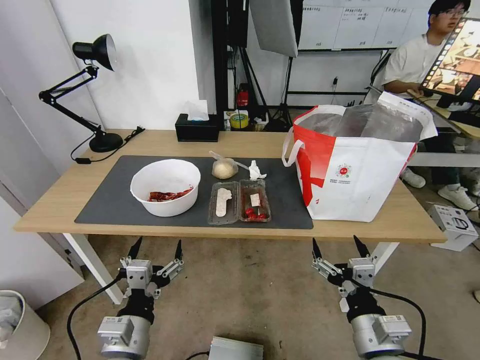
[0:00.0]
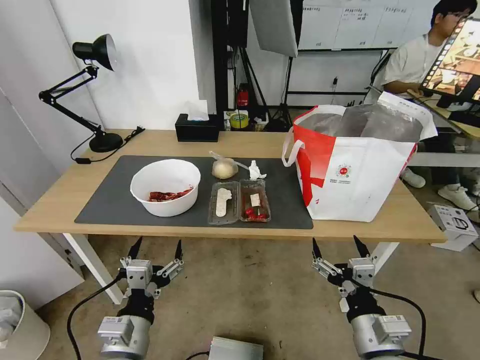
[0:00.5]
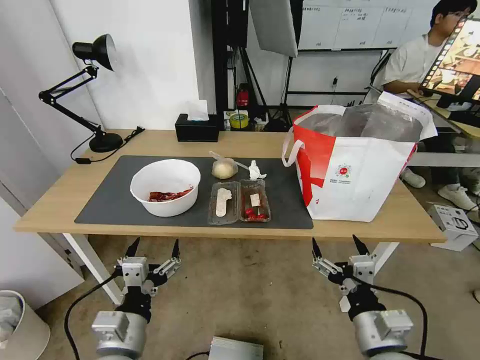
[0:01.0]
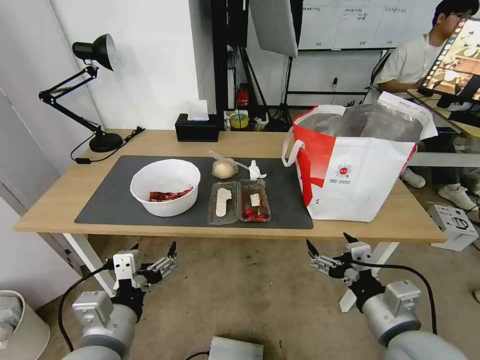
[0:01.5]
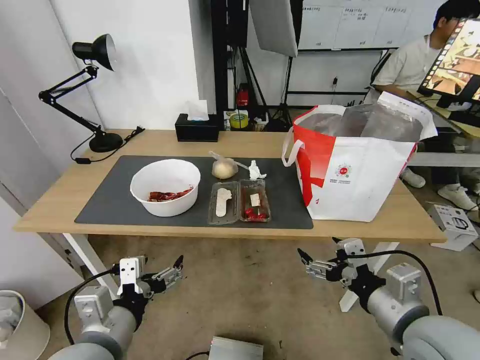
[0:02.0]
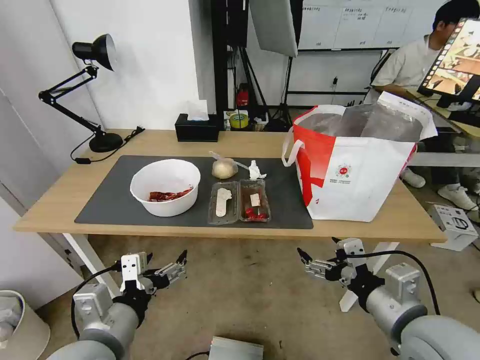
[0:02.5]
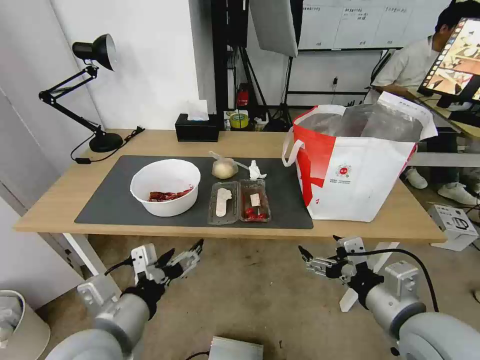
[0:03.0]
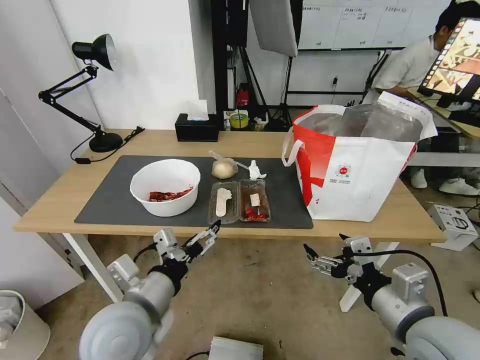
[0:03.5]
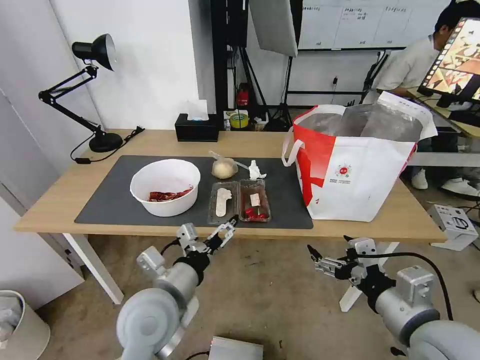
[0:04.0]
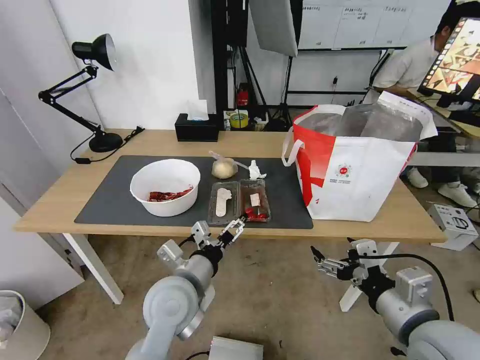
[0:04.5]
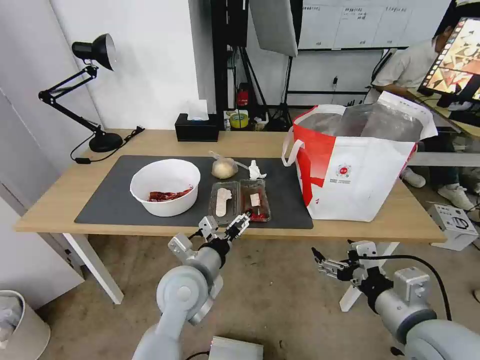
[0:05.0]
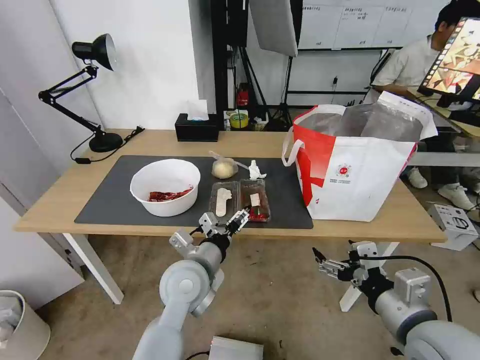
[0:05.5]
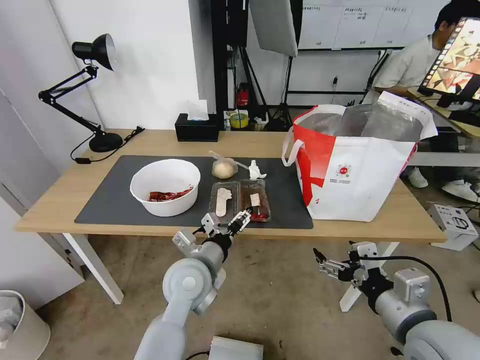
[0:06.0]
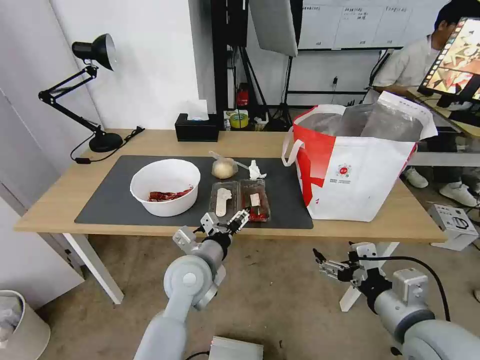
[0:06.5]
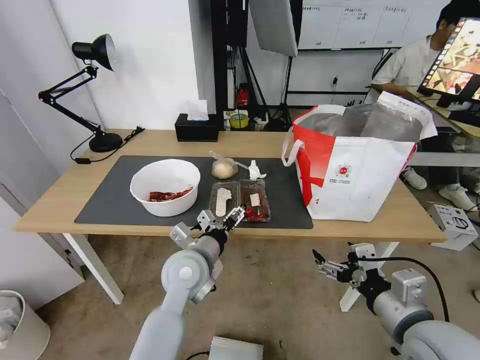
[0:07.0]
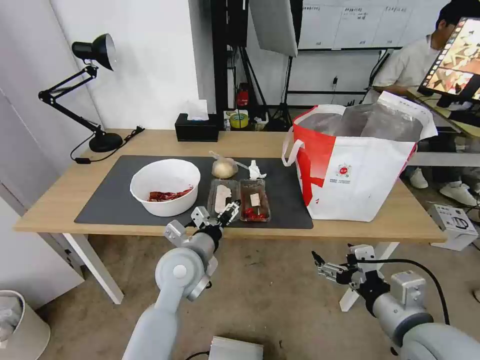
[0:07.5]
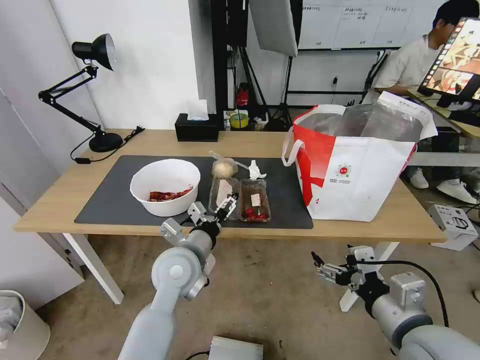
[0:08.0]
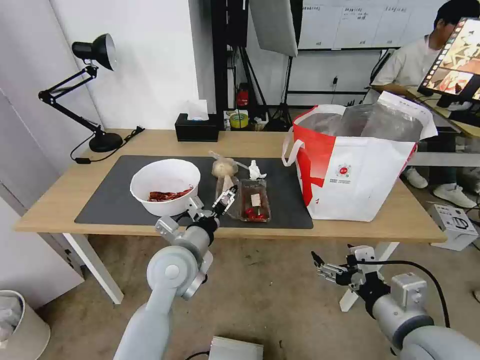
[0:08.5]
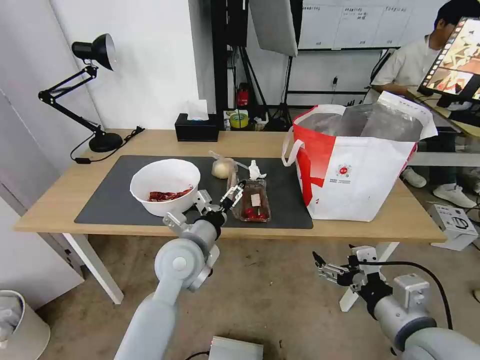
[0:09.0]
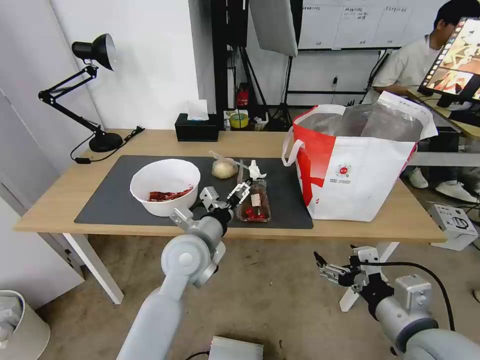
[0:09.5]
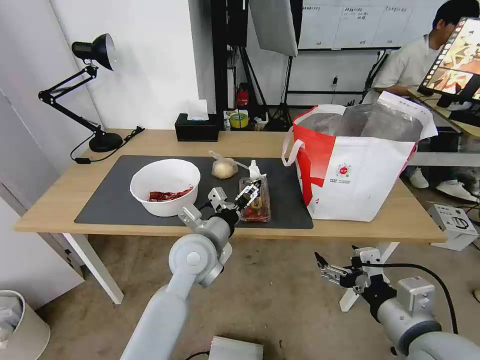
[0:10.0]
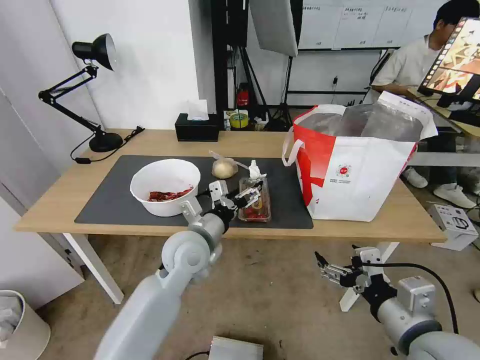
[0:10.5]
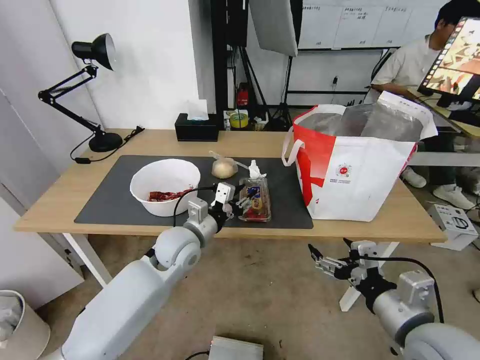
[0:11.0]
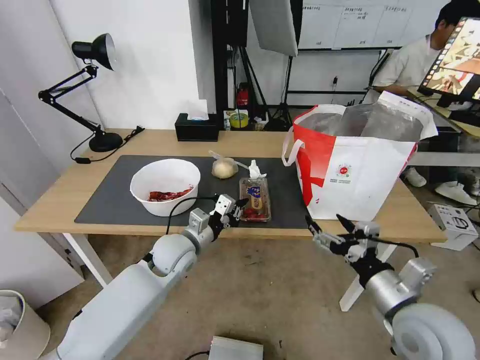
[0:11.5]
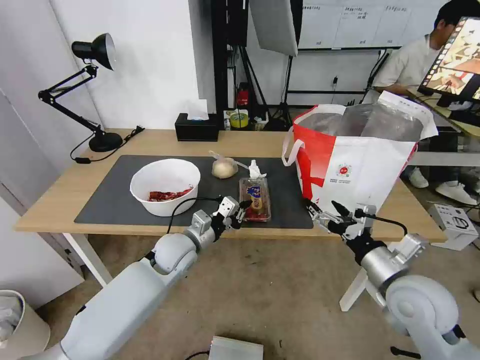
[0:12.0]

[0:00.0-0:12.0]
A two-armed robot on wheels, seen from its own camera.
Task of the whole recording: Pick up the trash from the table and place it into the takeout bag.
0:02.0 to 0:04.0: The left gripper moves forward and to the right, approximately 10 cm.
0:04.0 to 0:06.0: The left gripper shifts roughly 5 cm forward.
0:06.0 to 0:10.0: The grippers stay close to where they were, moving slightly.
0:10.0 to 0:12.0: The right gripper goes approximately 10 cm forward. The left gripper shifts roughly 10 cm downward, to the left and forward, and closes up.

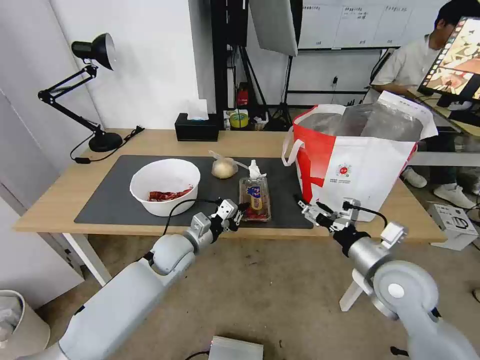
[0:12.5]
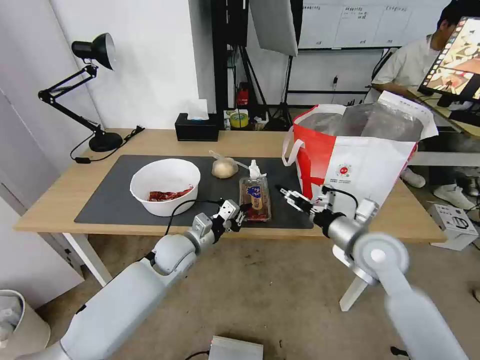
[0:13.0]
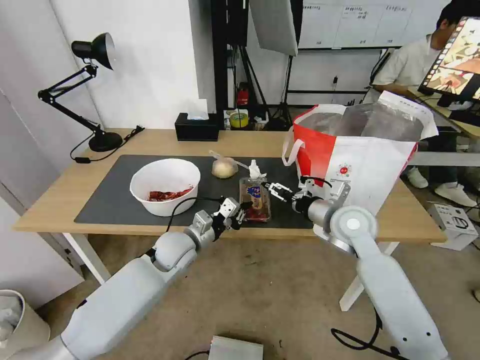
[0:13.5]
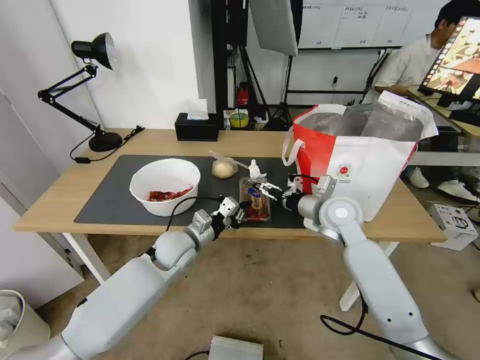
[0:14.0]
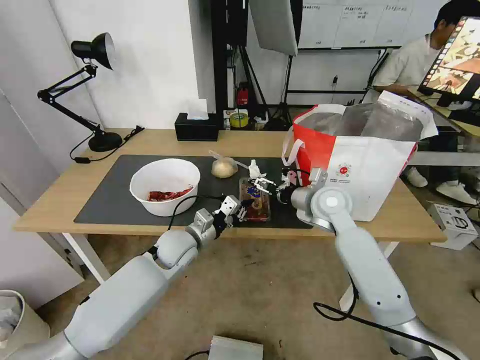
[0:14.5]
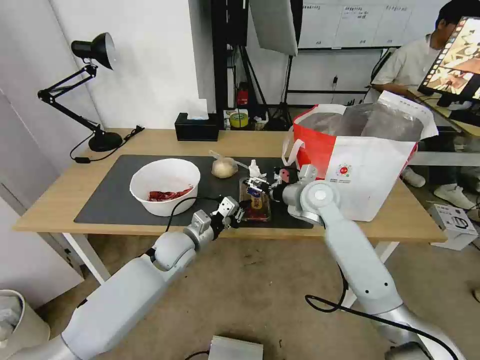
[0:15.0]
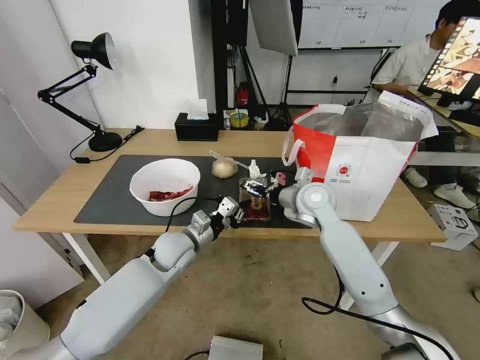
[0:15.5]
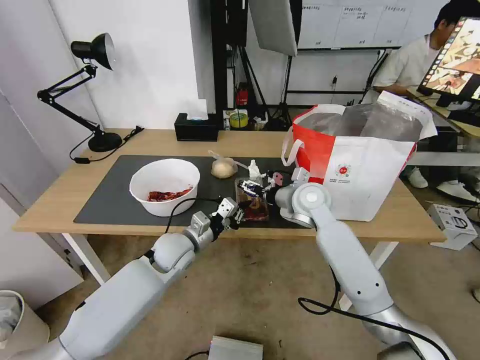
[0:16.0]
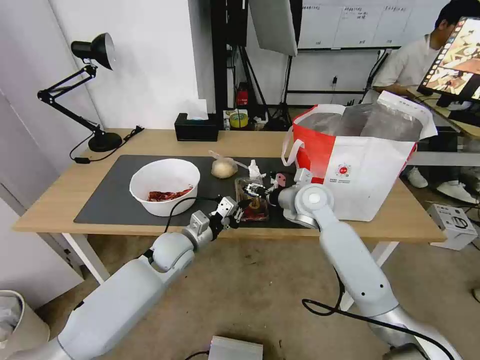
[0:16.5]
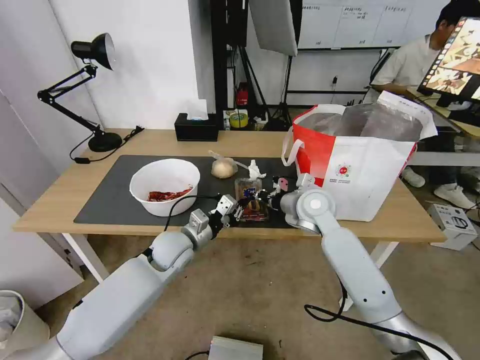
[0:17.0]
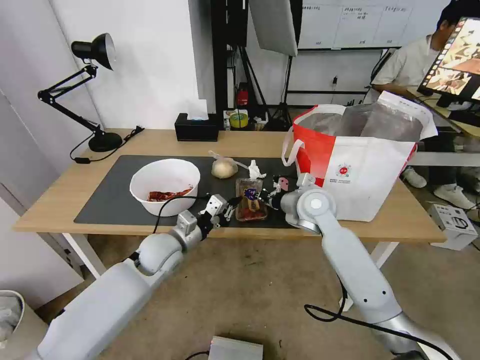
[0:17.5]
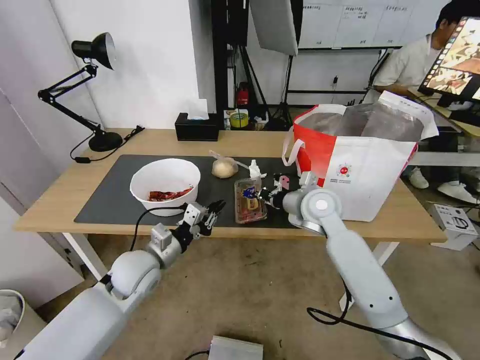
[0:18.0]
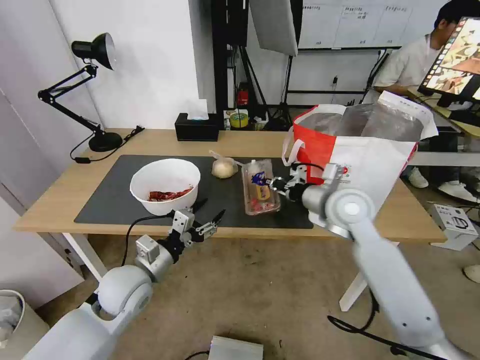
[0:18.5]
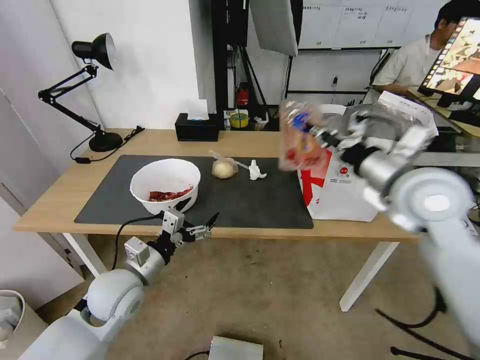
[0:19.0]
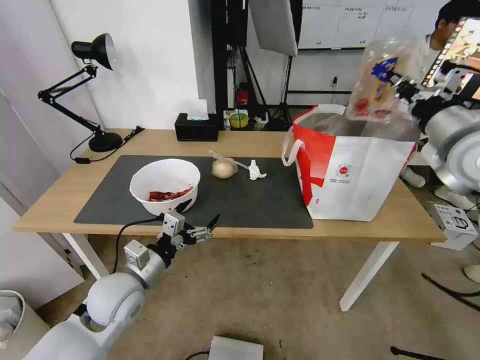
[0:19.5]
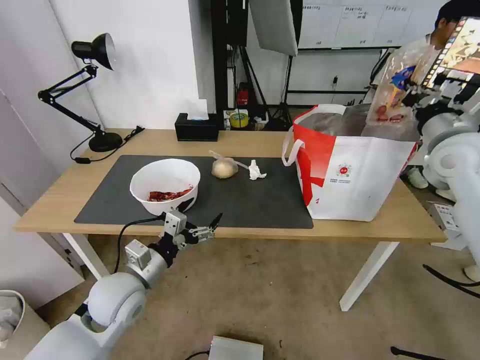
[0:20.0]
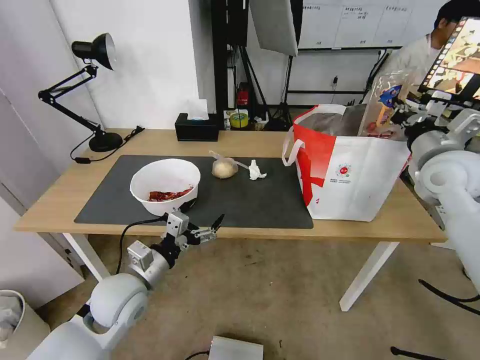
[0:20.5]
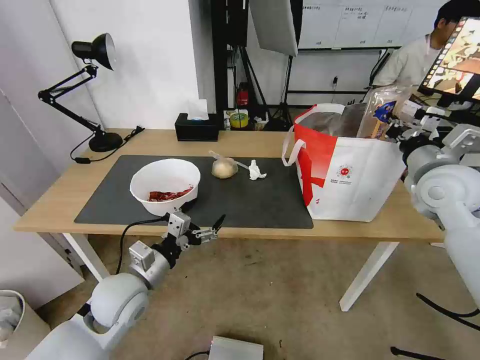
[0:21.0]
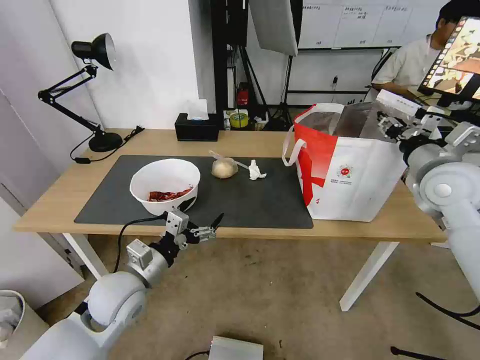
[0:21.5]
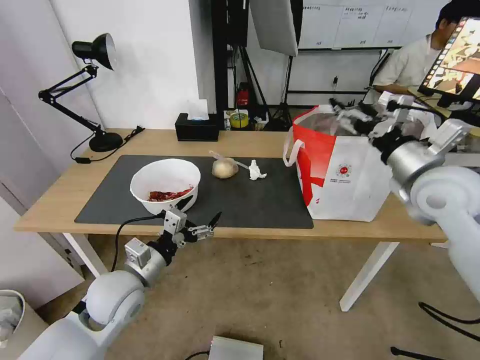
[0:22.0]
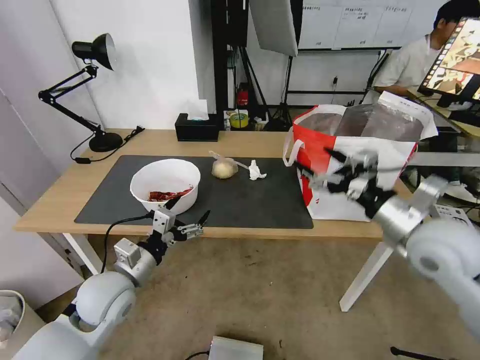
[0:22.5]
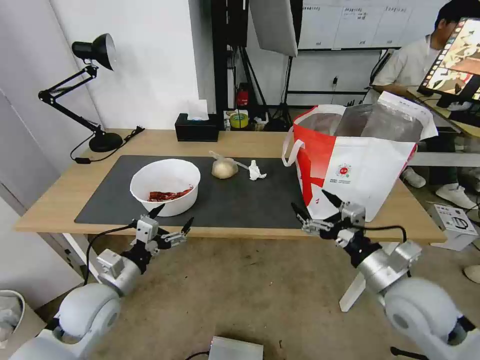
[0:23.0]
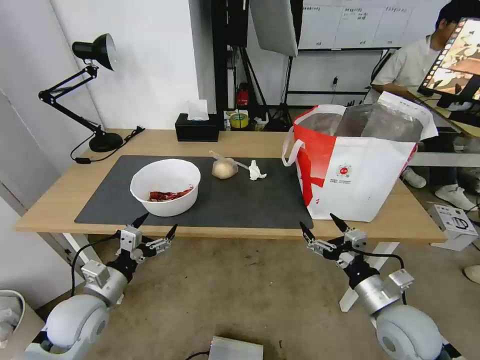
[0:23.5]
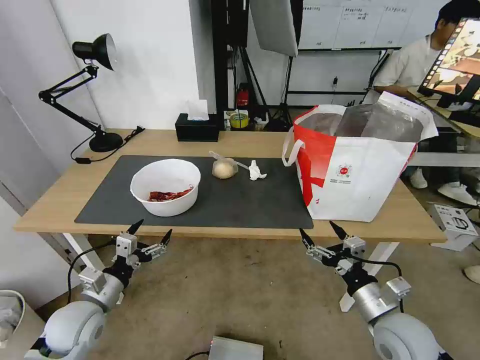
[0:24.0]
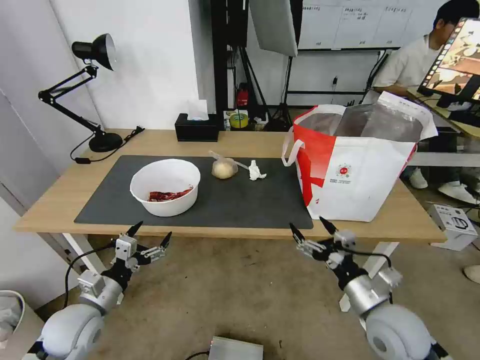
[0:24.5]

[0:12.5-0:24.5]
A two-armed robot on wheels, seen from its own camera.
Task of the whole recording: Pick up the trash from the table and place it into the takeout bag.
0:12.5 to 0:14.5: The right gripper shifts roughly 20 cm forward and to the left.
0:14.5 to 0:16.5: The grippers stay close to where they were, moving slightly.
0:16.5 to 0:18.5: The left gripper is displaced backward and to the left by roughly 10 cm, and opens its fingers; the right gripper moves backward, about 5 cm, and closes its fingers.
0:18.5 to 0:20.5: The right gripper shifts approximately 20 cm to the right and upward.
0:20.5 to 0:22.5: The right gripper goes about 15 cm backward and to the left, and opens its fingers.
0:22.5 to 0:24.5: The left gripper travels to the left and downward by roughly 10 cm; the right gripper travels downward and backward by about 20 cm.

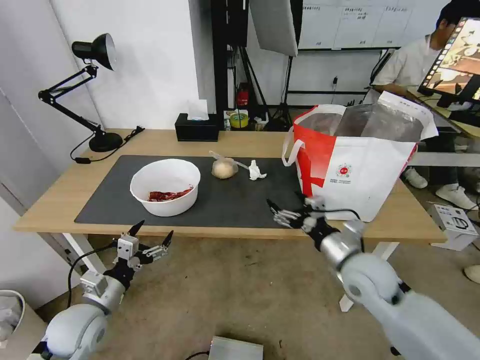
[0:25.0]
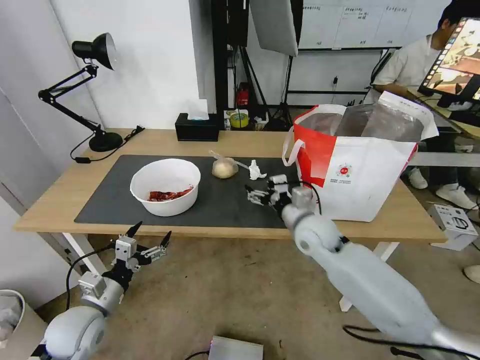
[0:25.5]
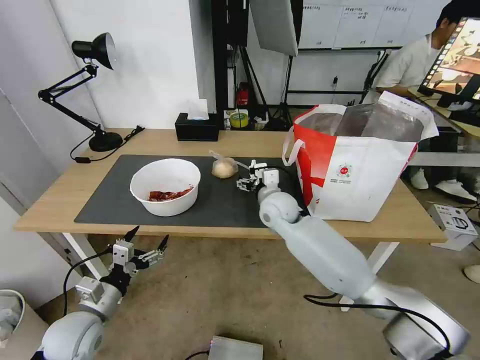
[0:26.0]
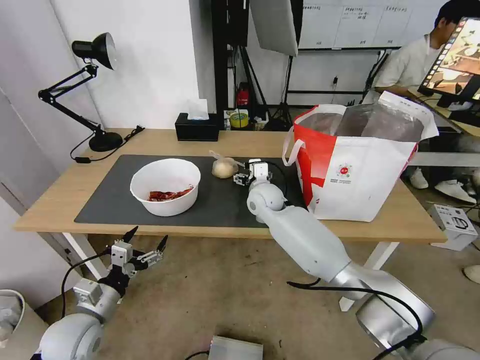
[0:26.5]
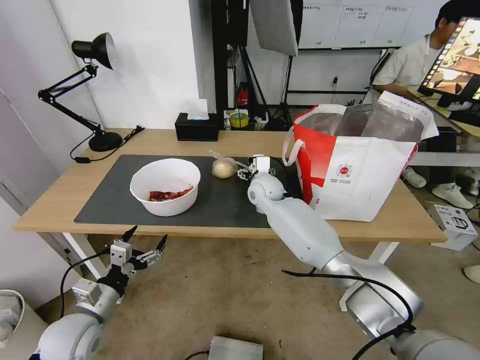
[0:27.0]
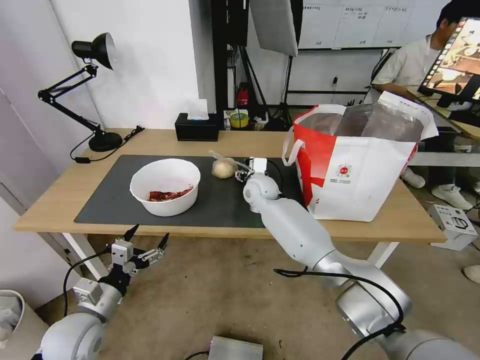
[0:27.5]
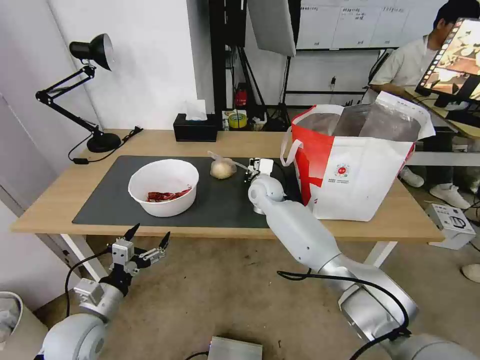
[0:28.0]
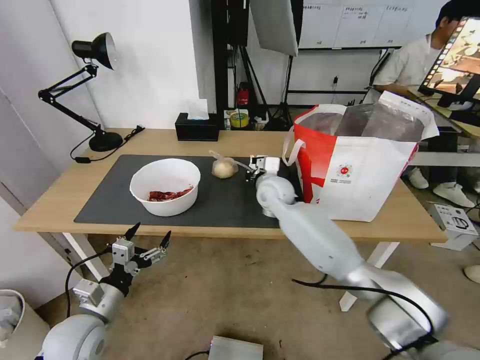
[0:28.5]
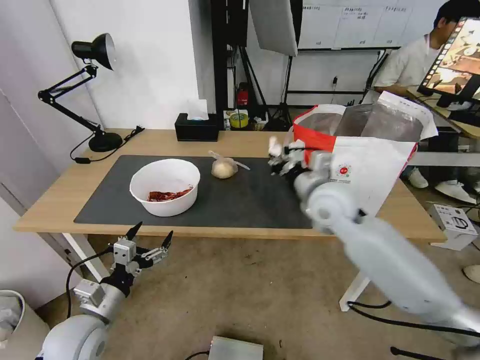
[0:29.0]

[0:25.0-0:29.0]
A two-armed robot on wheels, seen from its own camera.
Task of the whole recording: Pick up the trash from the table and place it into the takeout bag.
0:25.0 to 0:27.0: The right gripper shifts approximately 30 cm forward and to the left.
0:27.0 to 0:29.0: The right gripper travels backward, to the right and upward by about 20 cm, and closes.
